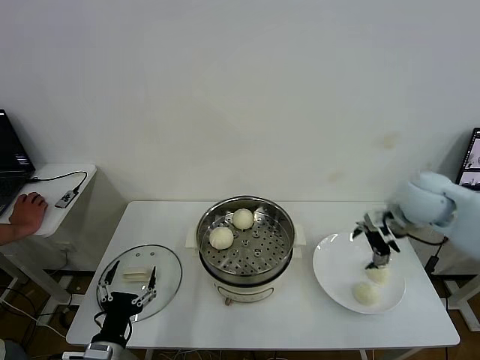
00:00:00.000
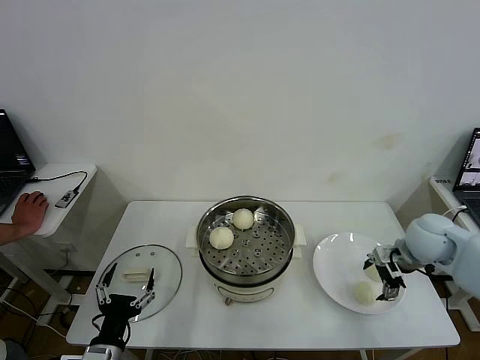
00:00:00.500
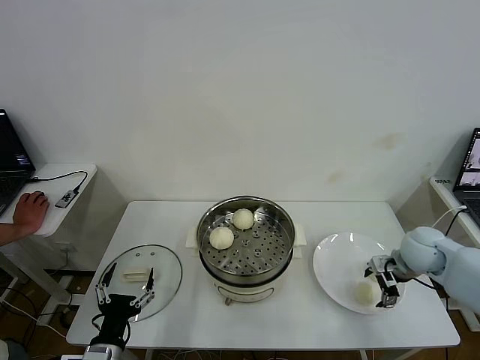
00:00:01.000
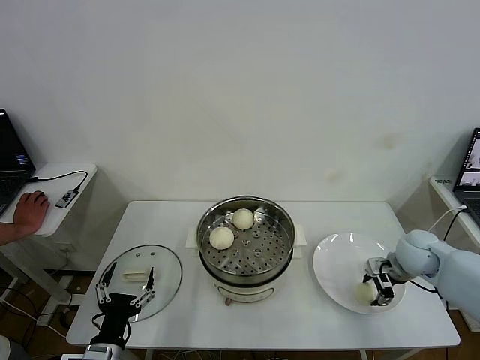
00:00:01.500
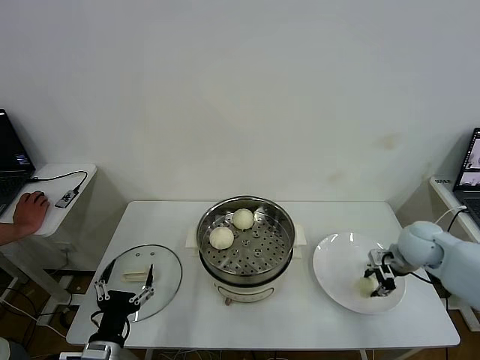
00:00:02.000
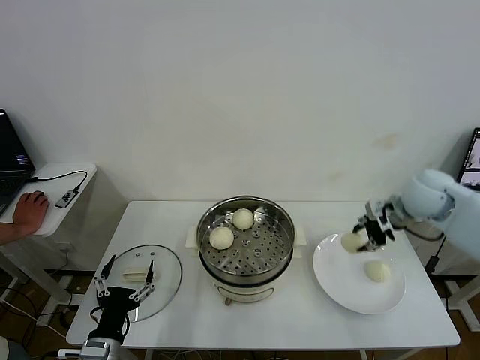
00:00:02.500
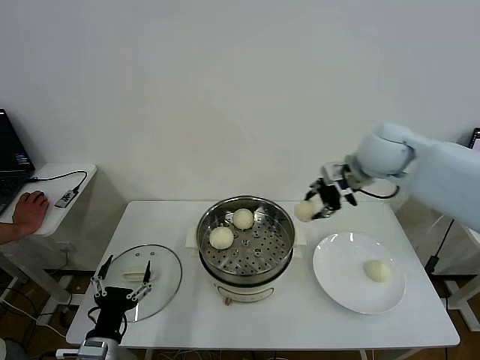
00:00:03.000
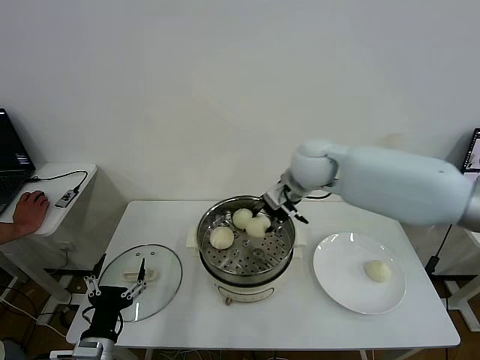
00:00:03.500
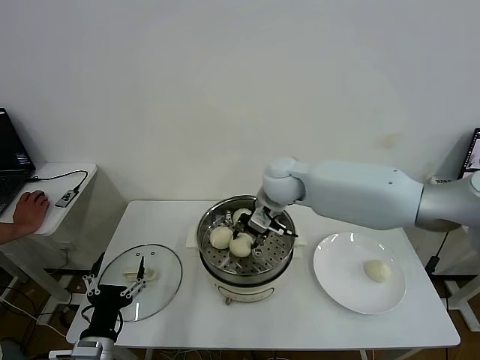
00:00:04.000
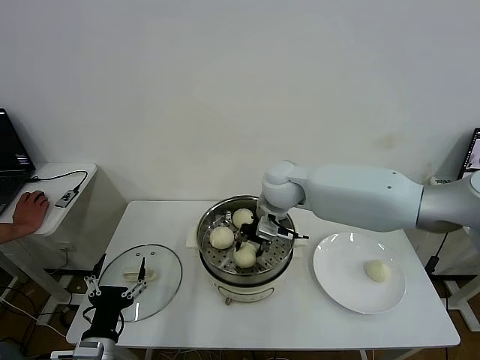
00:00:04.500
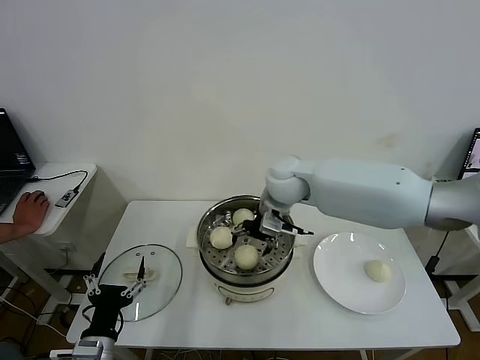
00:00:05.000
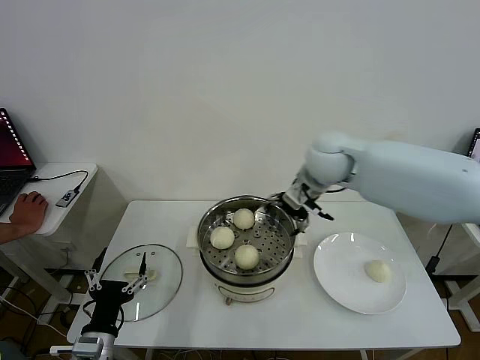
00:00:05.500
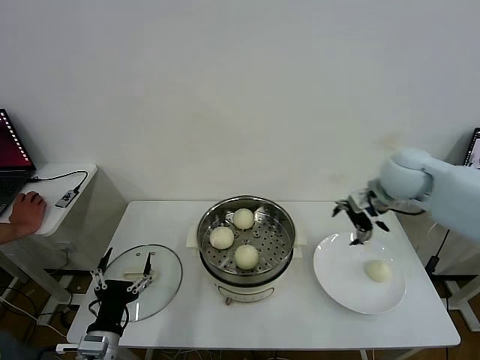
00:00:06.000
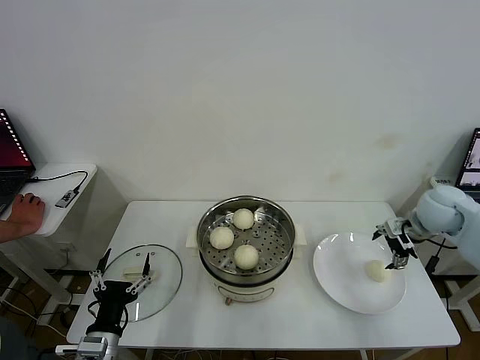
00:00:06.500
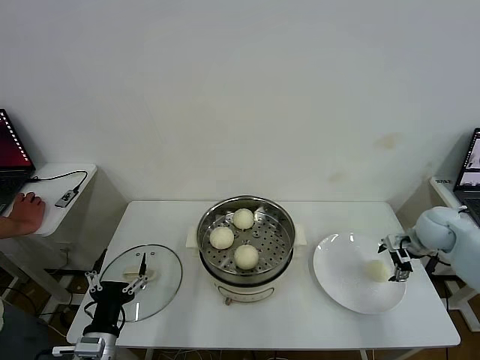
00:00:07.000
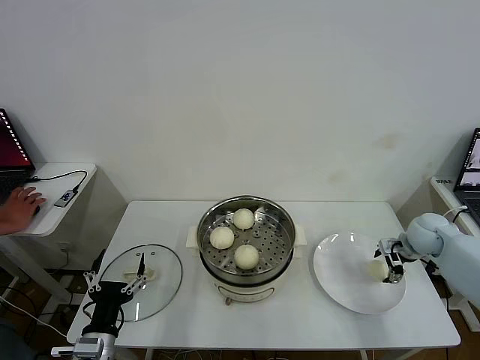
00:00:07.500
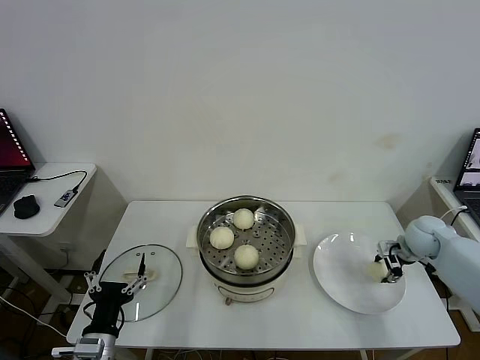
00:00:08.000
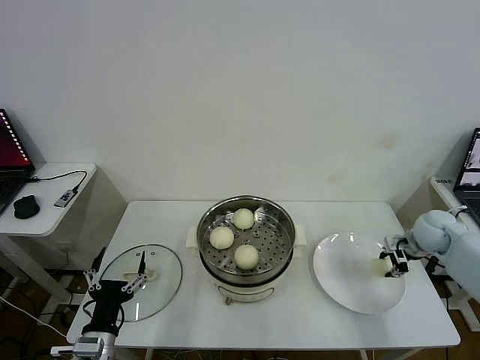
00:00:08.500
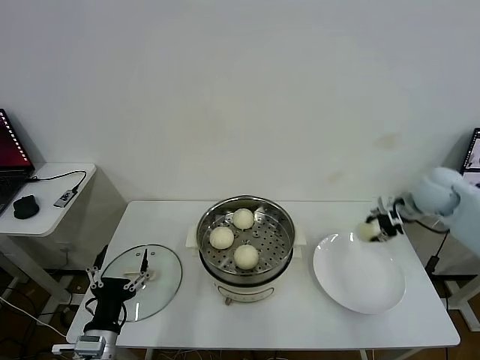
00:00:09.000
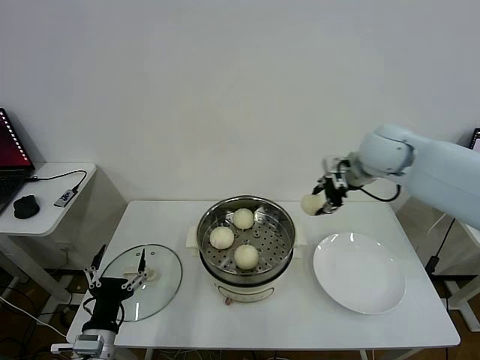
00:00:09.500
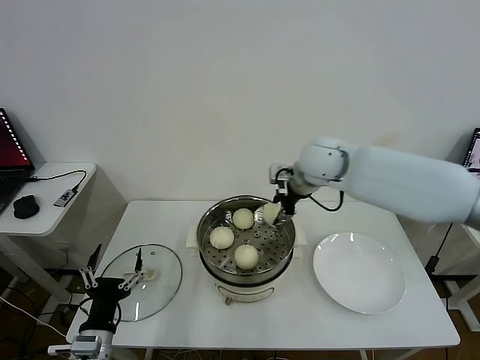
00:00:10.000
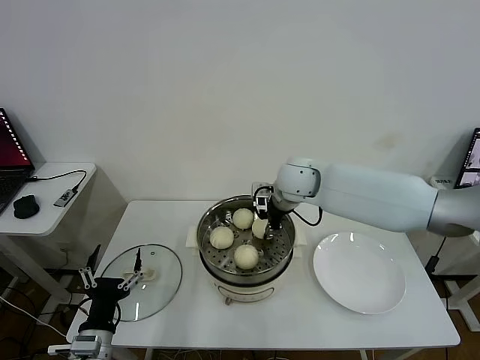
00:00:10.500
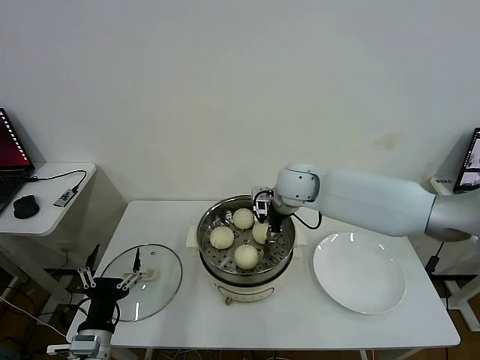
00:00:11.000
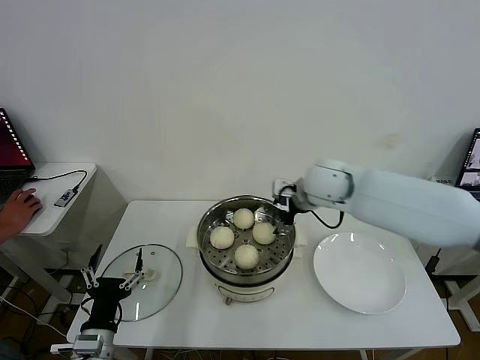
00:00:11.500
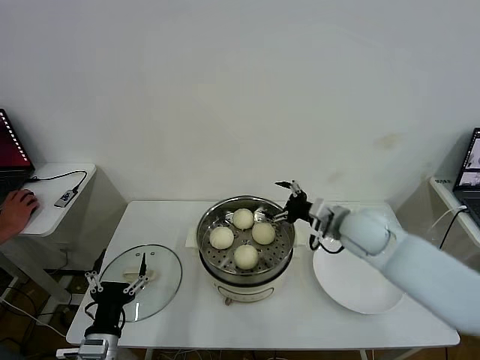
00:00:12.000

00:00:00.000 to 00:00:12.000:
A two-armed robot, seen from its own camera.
Task of the whole recording: take steamed baozi put them in steamer then cover it.
Step, 00:00:00.000 to 00:00:01.500: Grasp the baozi in the plate with right gripper.
Step, 00:00:02.000 to 00:00:04.500: Place the baozi on the steamer with right gripper.
Step, 00:00:05.500 to 00:00:07.500: Grasp the baozi in the plate with right gripper.
Step, 00:00:08.000 to 00:00:11.000: Place the baozi on the steamer with right gripper.
00:00:00.000 to 00:00:02.000: The right gripper travels downward by roughly 10 cm, and closes its fingers.
00:00:02.000 to 00:00:04.000: The right gripper travels to the left by roughly 30 cm.
00:00:04.000 to 00:00:06.000: The right gripper heads to the right, covering about 25 cm, and opens up.
00:00:06.000 to 00:00:08.000: The right gripper shifts approximately 20 cm downward and to the right, and closes.
00:00:08.000 to 00:00:10.000: The right gripper moves to the left and upward, roughly 35 cm.
00:00:10.000 to 00:00:12.000: The right gripper goes approximately 15 cm downward, backward and to the right, and opens its fingers.

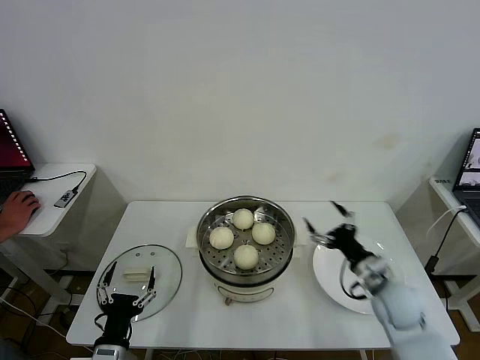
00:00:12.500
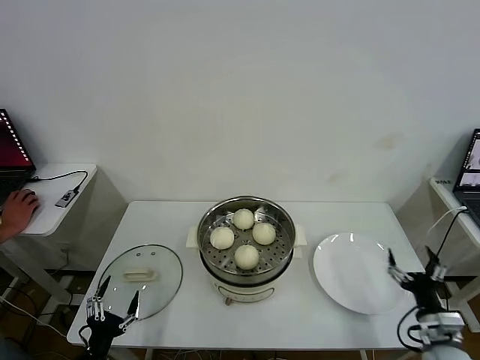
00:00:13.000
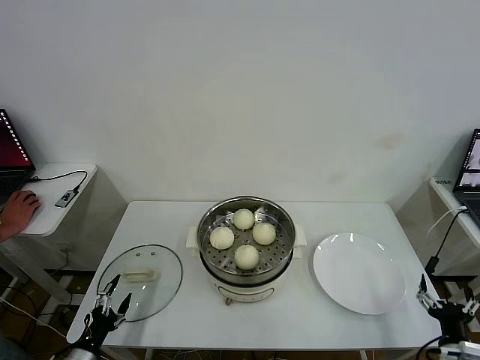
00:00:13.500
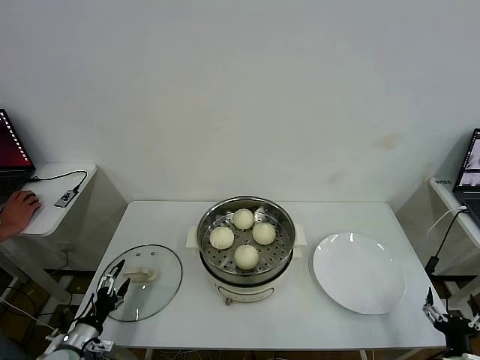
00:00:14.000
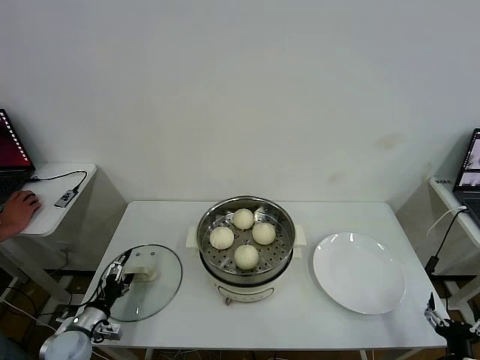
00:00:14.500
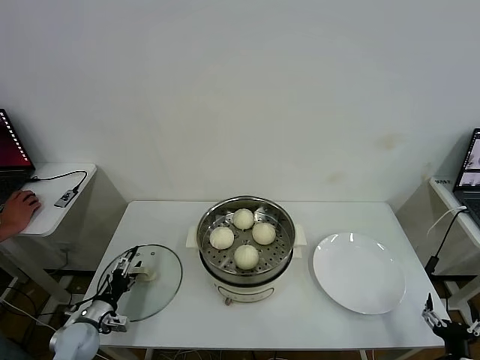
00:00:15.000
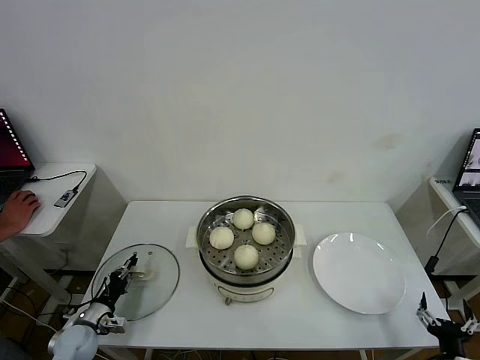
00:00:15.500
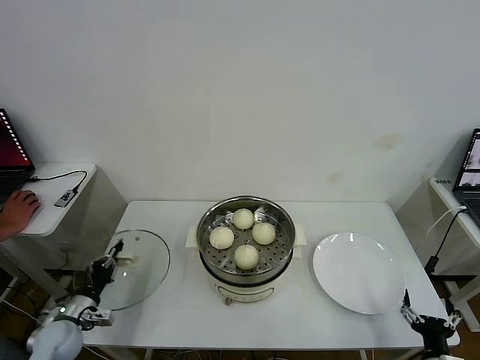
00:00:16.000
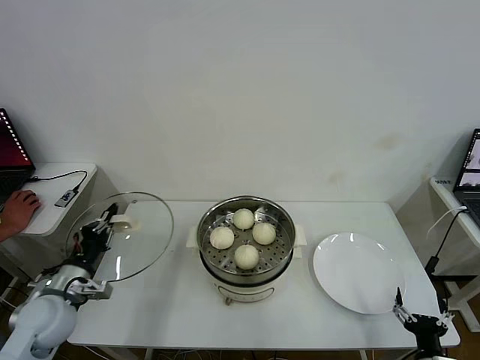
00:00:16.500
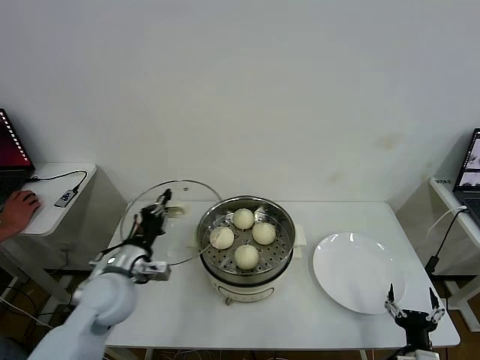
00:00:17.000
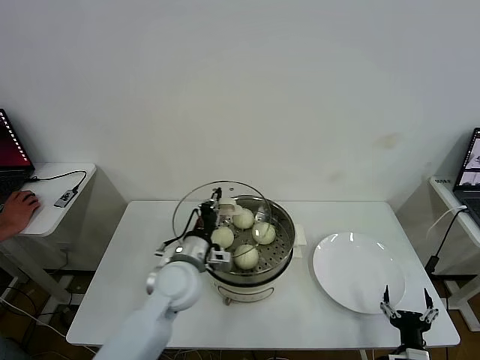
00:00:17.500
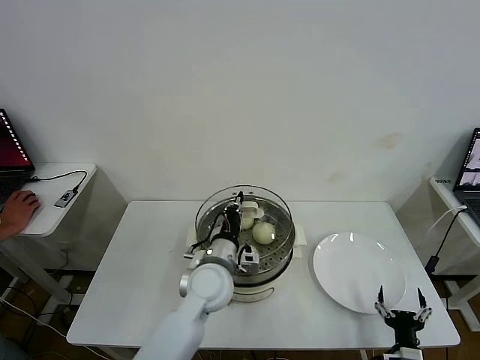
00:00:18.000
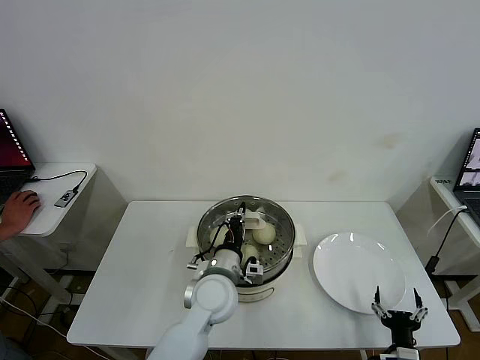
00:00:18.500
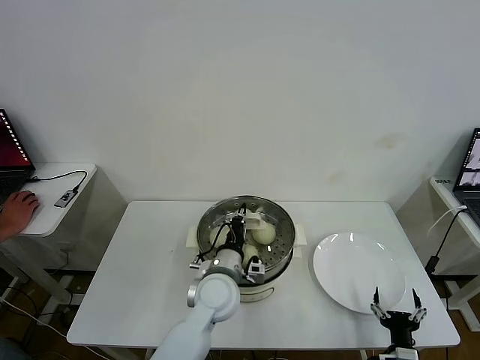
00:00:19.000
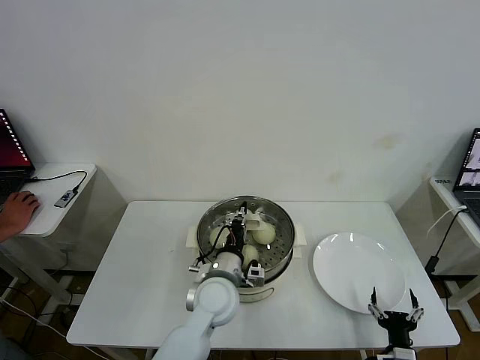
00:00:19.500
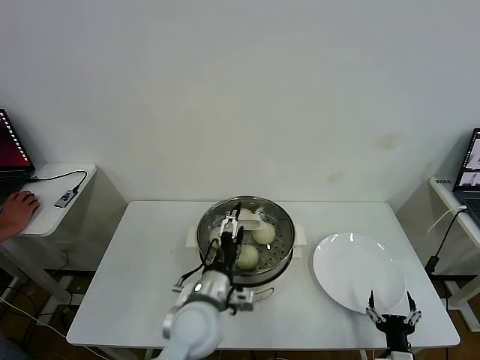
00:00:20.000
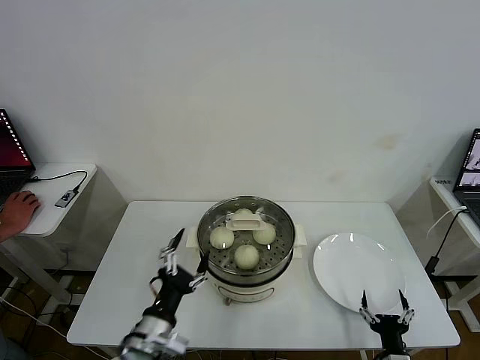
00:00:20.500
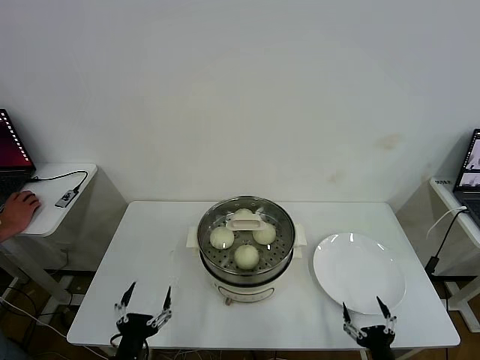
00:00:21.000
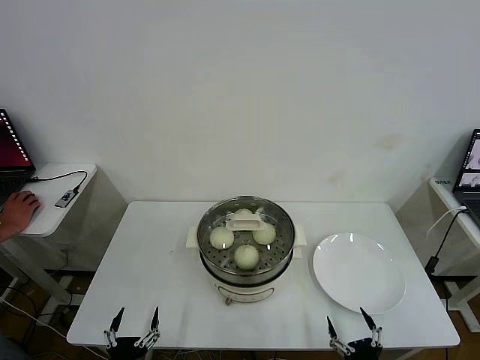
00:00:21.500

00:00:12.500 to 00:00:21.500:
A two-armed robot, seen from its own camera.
Task of the whole recording: take steamed baozi put them in steamer then cover it.
Step, 00:00:12.500 to 00:00:16.000: Grasp the pot lid with left gripper.
Step, 00:00:16.500 to 00:00:19.500: Place the pot lid on the steamer with left gripper.
00:00:12.500 to 00:00:14.500: The right gripper heads backward, to the right and downward, covering roughly 25 cm; the left gripper shifts some 20 cm to the left, forward and downward.
00:00:14.500 to 00:00:17.000: The left gripper travels upward and to the right by some 25 cm, and closes. Meanwhile the right gripper travels to the left by approximately 5 cm.
00:00:17.000 to 00:00:19.500: The left gripper moves to the right, approximately 20 cm.
00:00:19.500 to 00:00:21.500: The right gripper heads backward, covering about 5 cm. The left gripper heads backward, to the left and downward, covering about 35 cm, and opens.

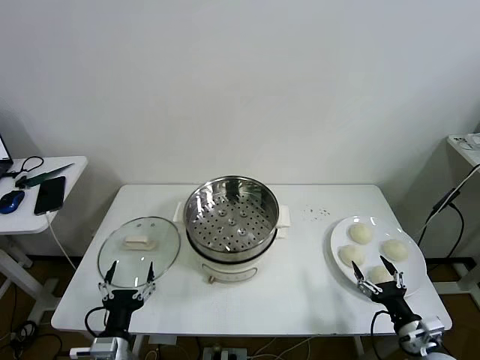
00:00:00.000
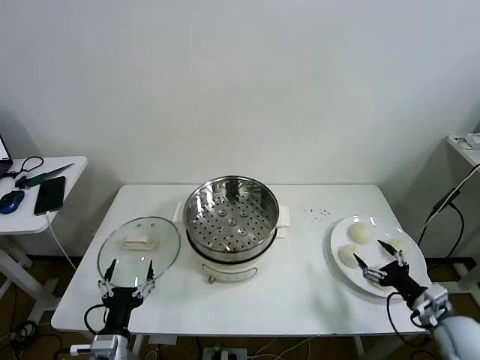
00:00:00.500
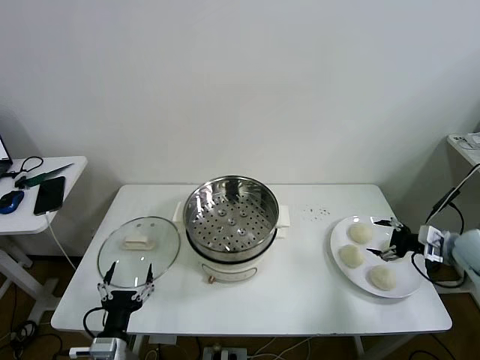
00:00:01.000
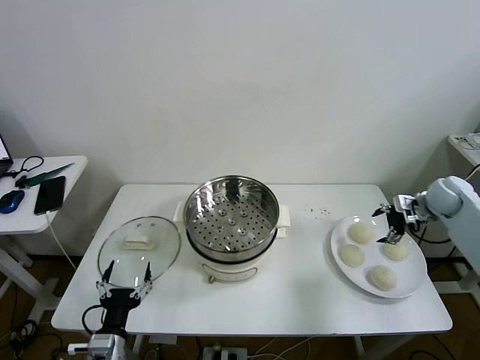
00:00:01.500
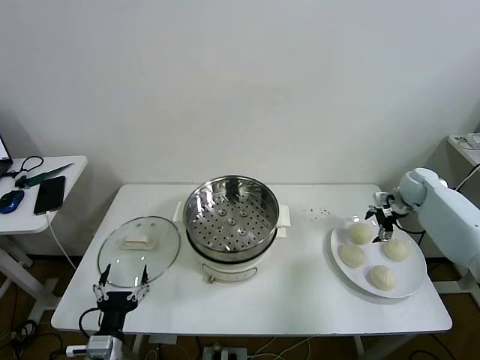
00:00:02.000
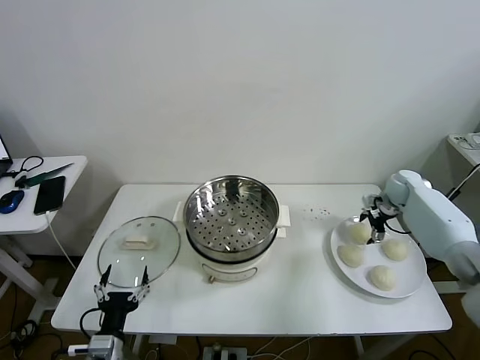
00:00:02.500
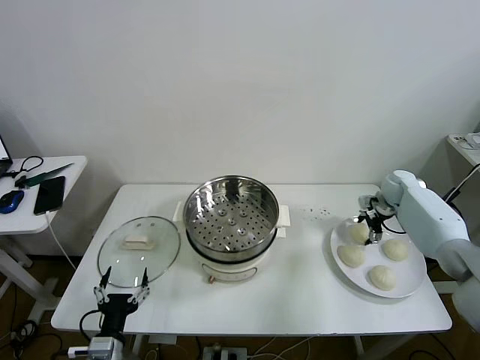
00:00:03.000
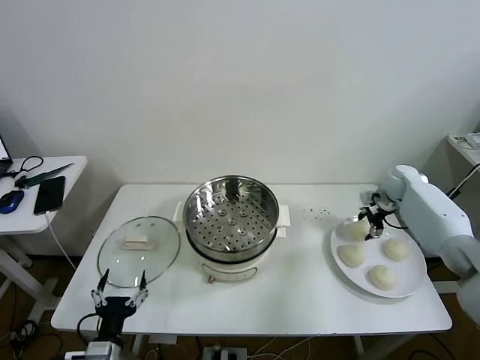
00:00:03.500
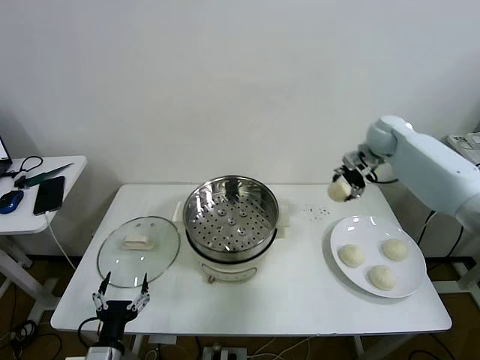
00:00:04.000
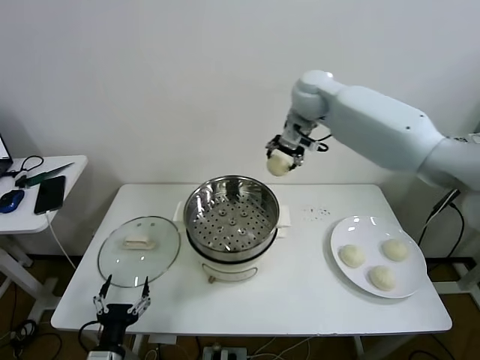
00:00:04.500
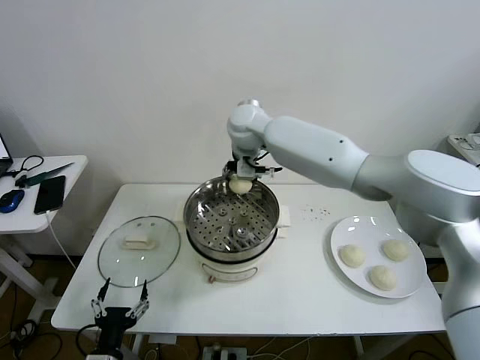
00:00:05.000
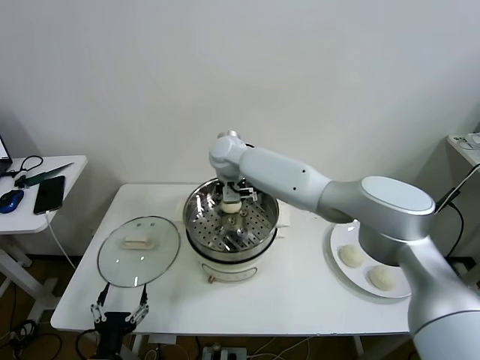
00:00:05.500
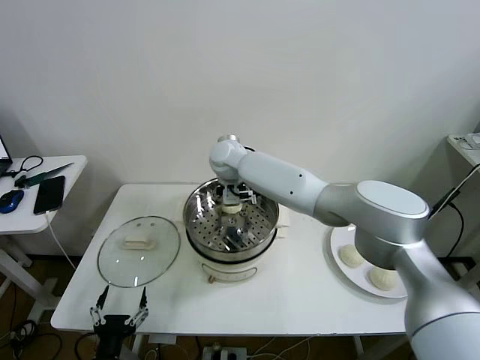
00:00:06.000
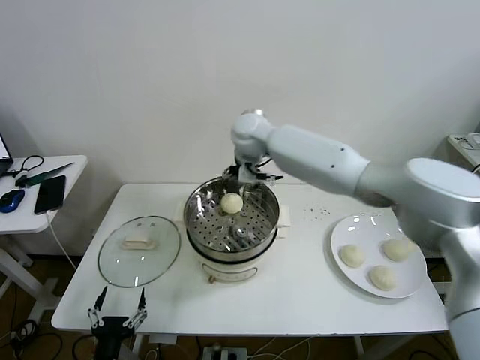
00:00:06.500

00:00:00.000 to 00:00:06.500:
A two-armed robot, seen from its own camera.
Task of the whole recording: take steamed baozi put them in steamer then cover it.
Step, 00:00:00.000 to 00:00:03.000: Grasp the baozi in the plate with right gripper.
Step, 00:00:03.500 to 00:00:06.000: Place the baozi on the steamer with right gripper.
00:00:02.000 to 00:00:04.500: The right gripper moves to the left and upward, roughly 40 cm, and closes its fingers.
00:00:04.500 to 00:00:06.500: The right gripper travels downward by approximately 5 cm, and opens up.
